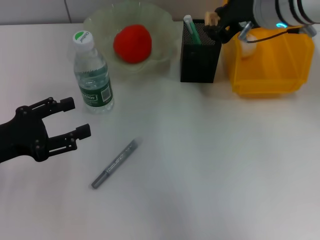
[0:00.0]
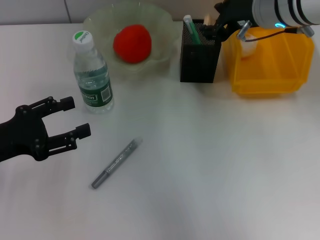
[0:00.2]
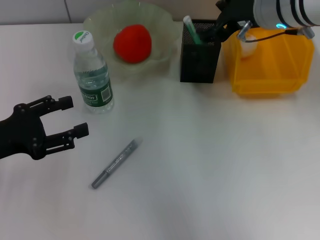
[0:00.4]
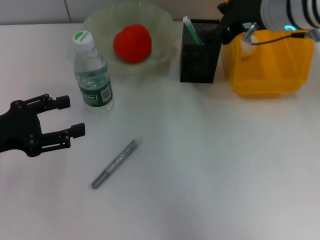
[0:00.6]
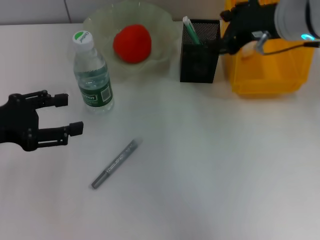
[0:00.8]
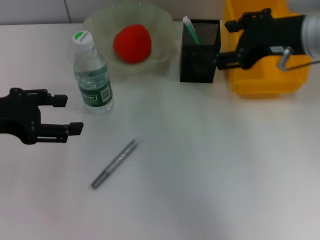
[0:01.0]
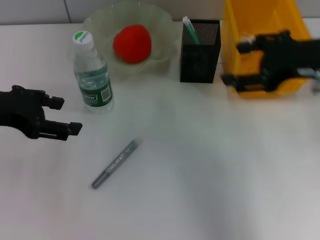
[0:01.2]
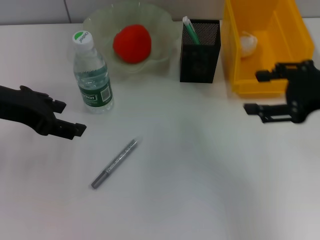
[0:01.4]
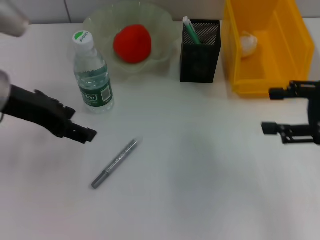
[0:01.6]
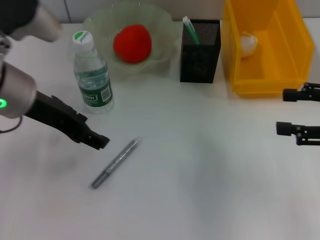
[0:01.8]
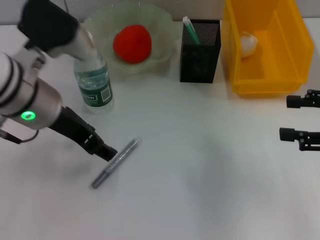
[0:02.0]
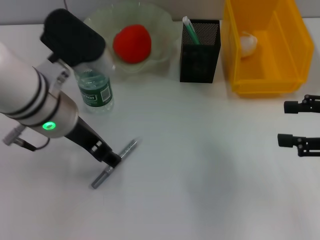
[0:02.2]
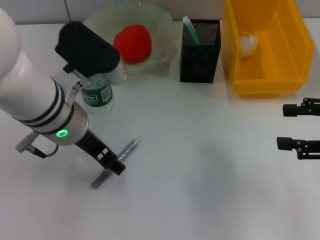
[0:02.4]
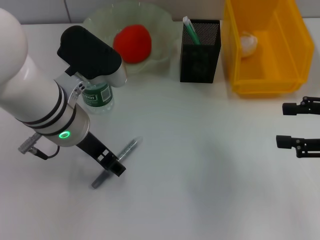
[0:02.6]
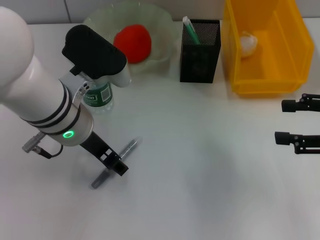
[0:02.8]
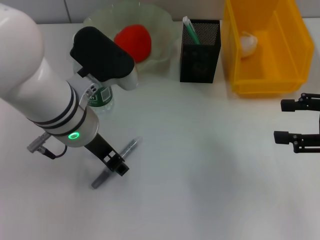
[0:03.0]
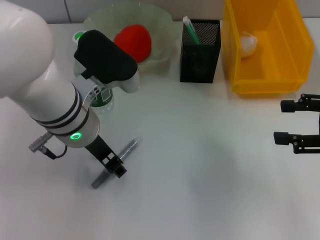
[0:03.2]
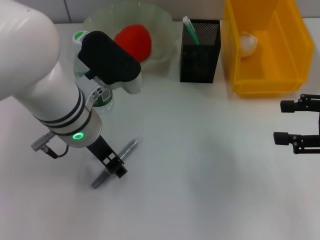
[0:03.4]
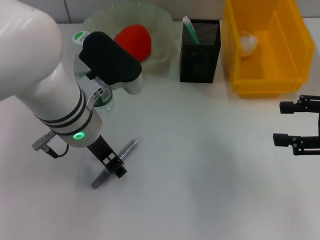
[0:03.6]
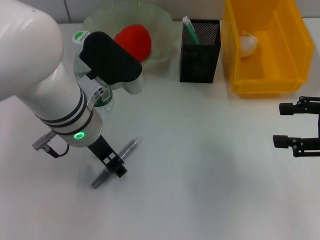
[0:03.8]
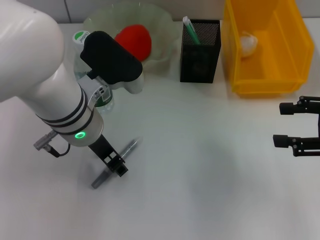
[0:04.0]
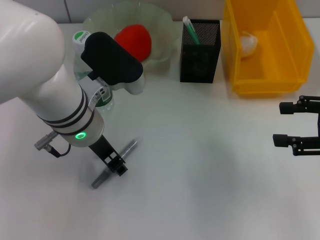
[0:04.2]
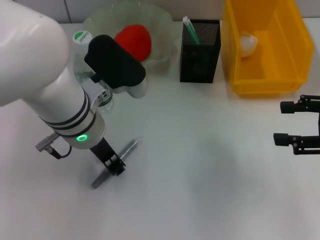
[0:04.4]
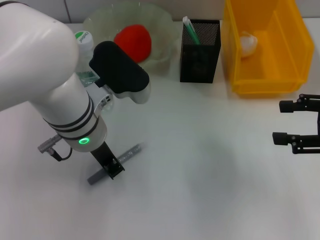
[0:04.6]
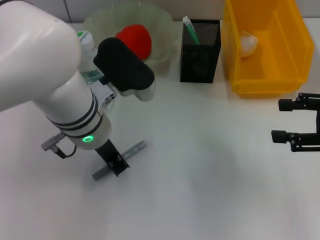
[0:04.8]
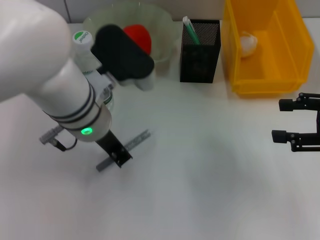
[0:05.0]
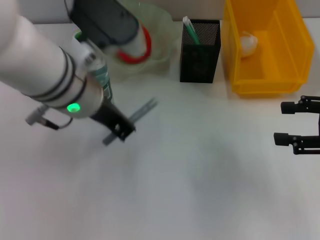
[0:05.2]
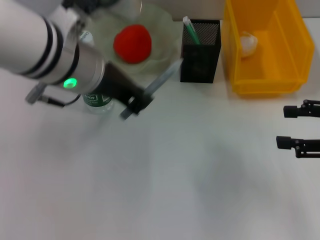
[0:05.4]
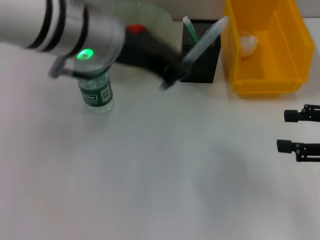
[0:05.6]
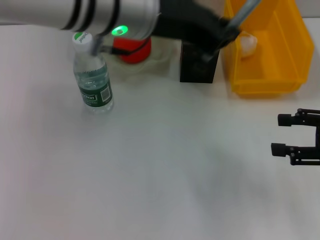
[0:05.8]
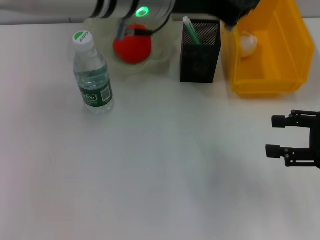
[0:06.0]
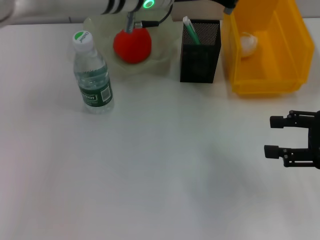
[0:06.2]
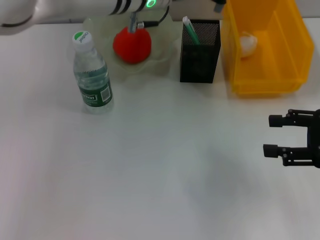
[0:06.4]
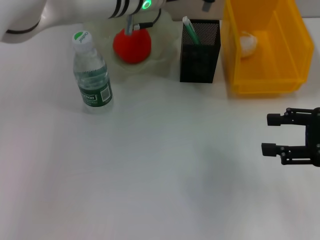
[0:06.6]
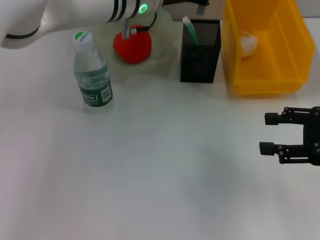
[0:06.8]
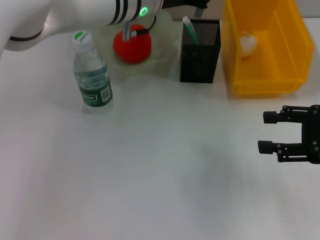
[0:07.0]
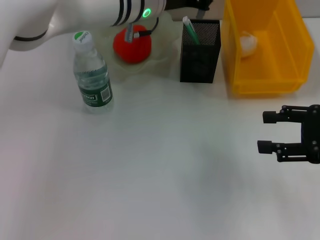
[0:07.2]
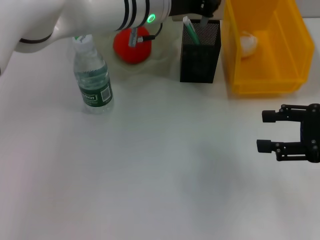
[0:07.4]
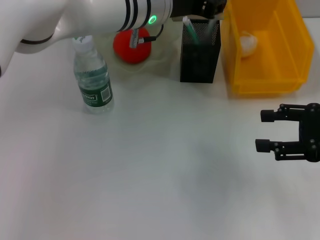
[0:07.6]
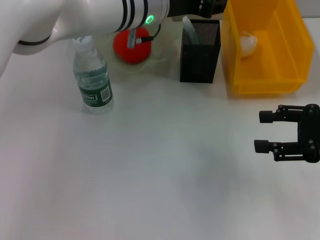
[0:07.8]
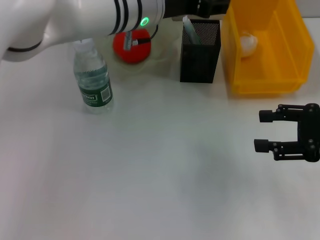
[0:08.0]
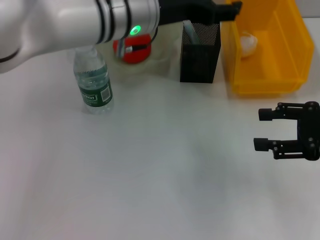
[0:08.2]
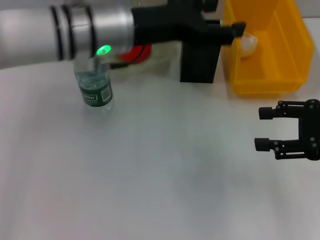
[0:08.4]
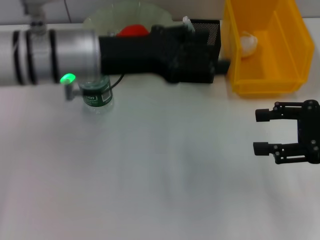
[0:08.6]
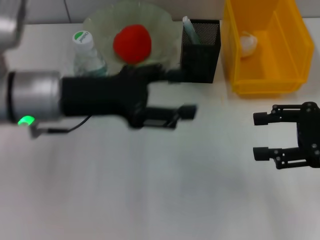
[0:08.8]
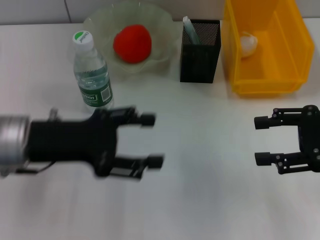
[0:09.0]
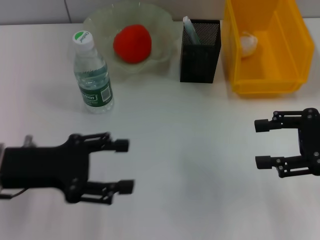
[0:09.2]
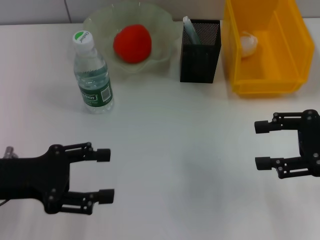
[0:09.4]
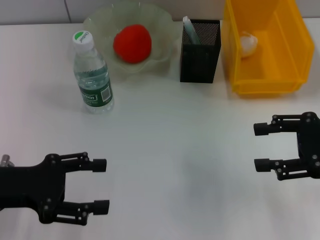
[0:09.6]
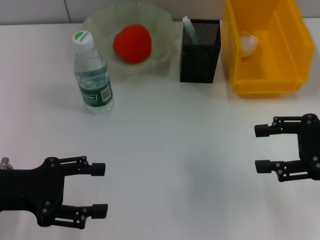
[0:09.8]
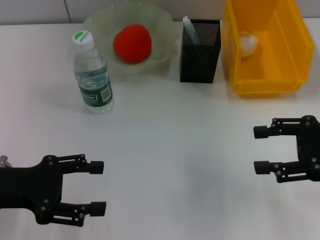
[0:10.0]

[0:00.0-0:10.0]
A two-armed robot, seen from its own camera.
Step, 0:00.8 to 0:05.2: Grab the gray glue with the right hand.
Step, 0:05.4 to 0:07.6: Place the gray glue into the pen holder with the right hand.
0:00.0 to 0:01.4: The right gripper is displaced to the right and backward by some 15 cm, and opens. Meanwhile the left gripper heads upward, forward and to the right, covering some 15 cm.
0:01.4 to 0:02.8: The left gripper is displaced to the right and downward by about 15 cm, while the right gripper heads to the right, covering approximately 5 cm.
0:02.8 to 0:04.2: The left gripper closes.
0:04.2 to 0:05.8: The left gripper moves upward, some 10 cm, and closes.
0:05.8 to 0:07.2: The left gripper shifts roughly 10 cm forward and downward.
0:07.2 to 0:08.6: The left gripper shifts roughly 15 cm backward and to the left, and opens its fingers.
0:08.6 to 0:10.0: The left gripper is displaced to the left, backward and downward by roughly 20 cm.
